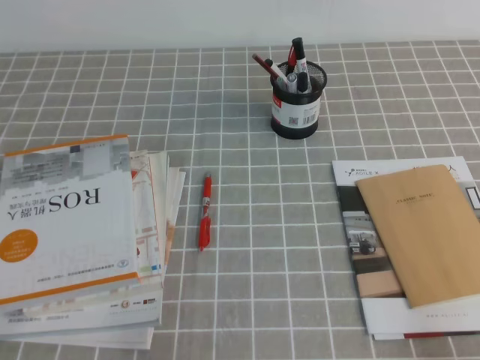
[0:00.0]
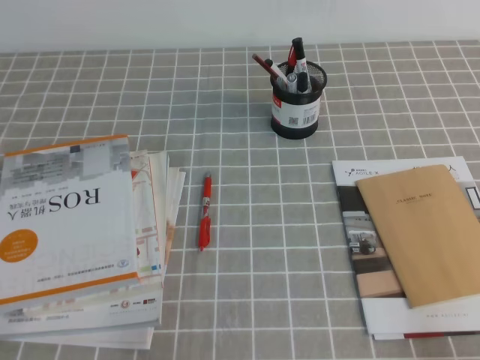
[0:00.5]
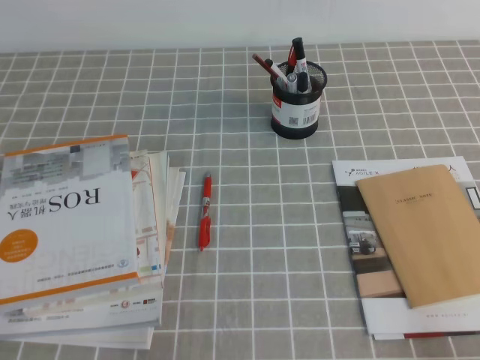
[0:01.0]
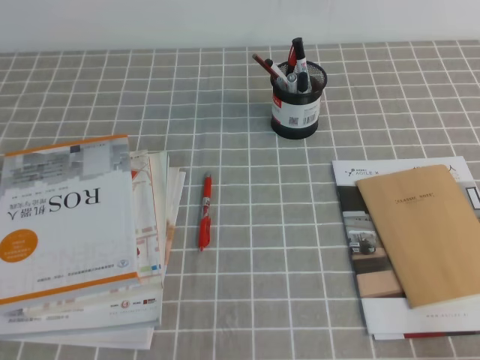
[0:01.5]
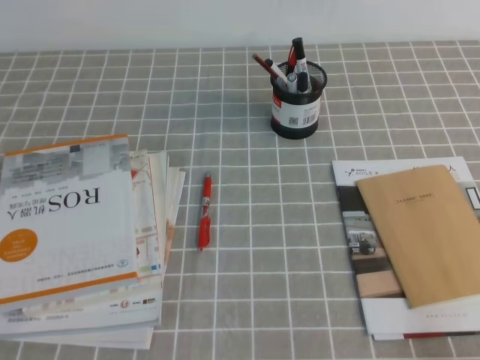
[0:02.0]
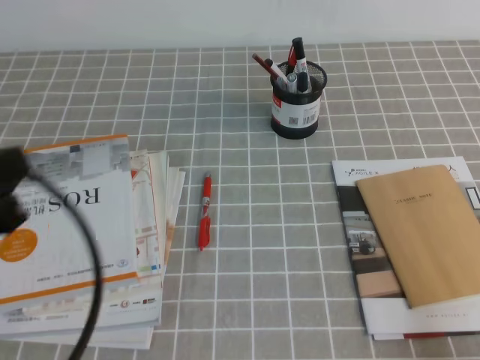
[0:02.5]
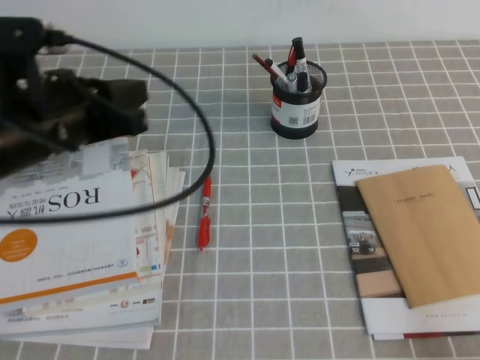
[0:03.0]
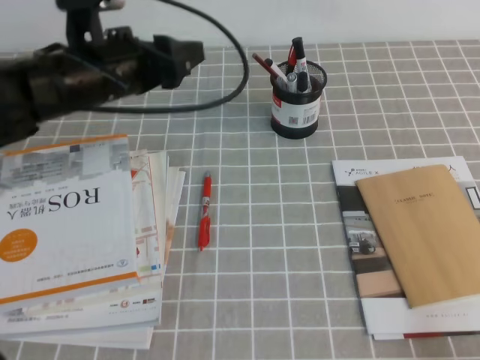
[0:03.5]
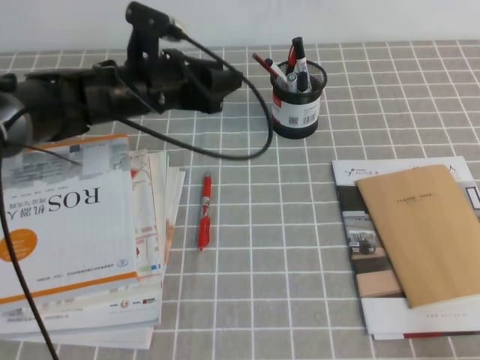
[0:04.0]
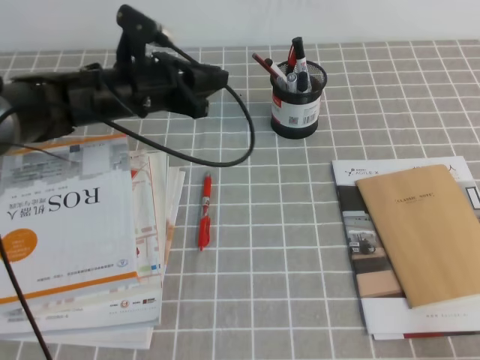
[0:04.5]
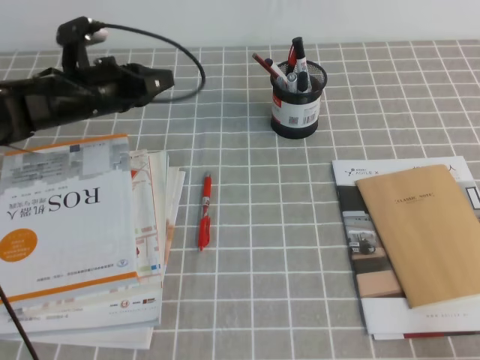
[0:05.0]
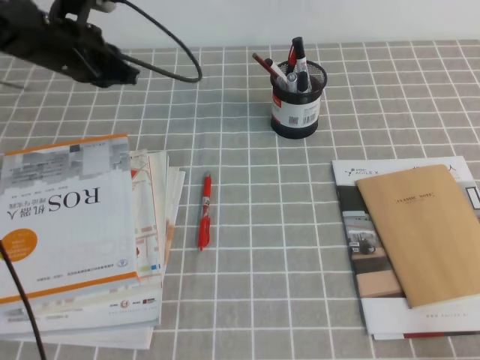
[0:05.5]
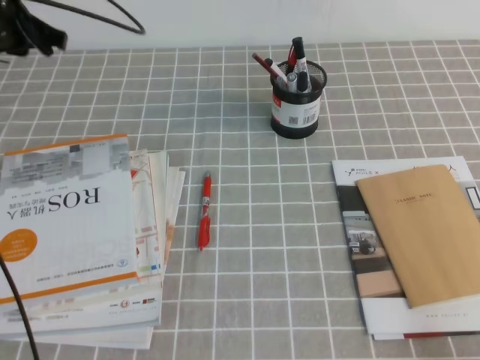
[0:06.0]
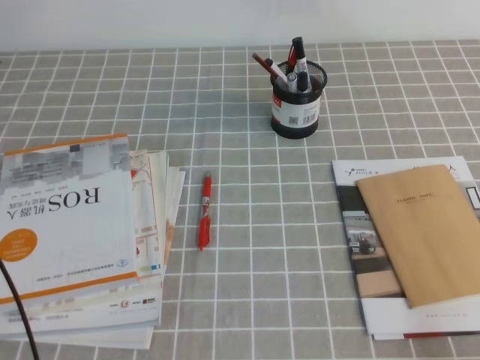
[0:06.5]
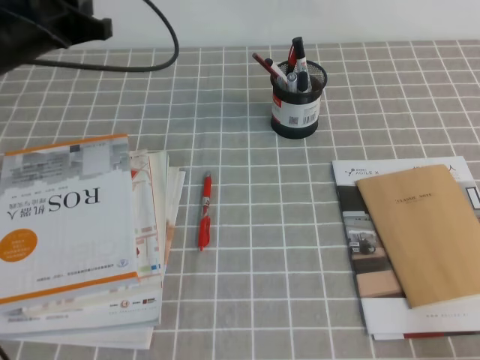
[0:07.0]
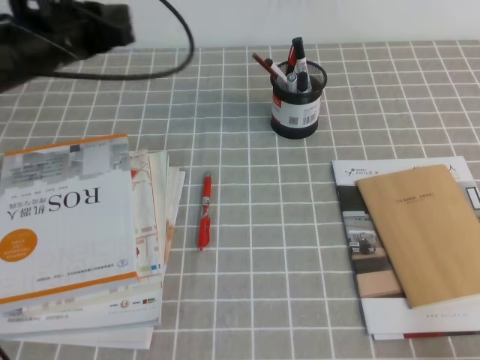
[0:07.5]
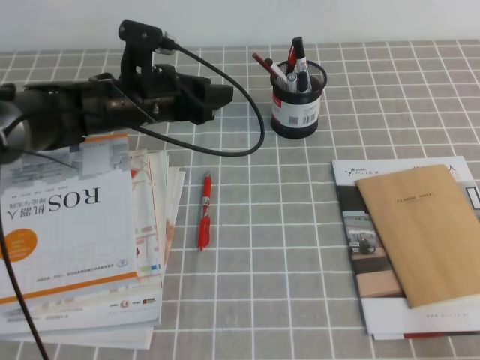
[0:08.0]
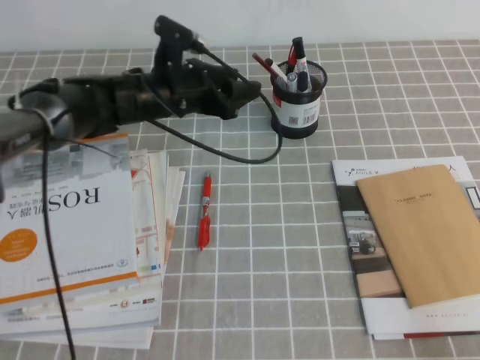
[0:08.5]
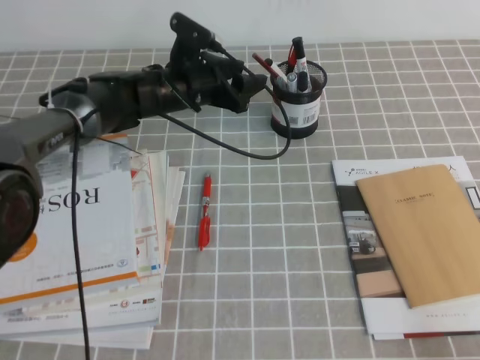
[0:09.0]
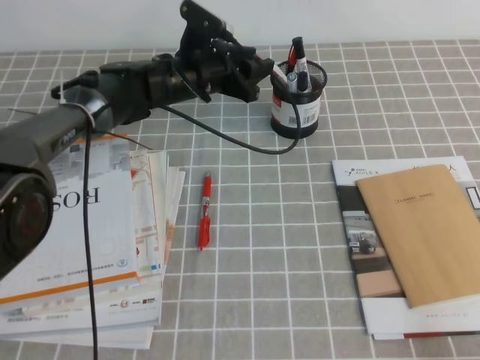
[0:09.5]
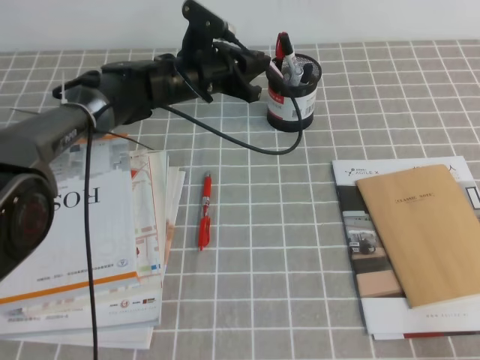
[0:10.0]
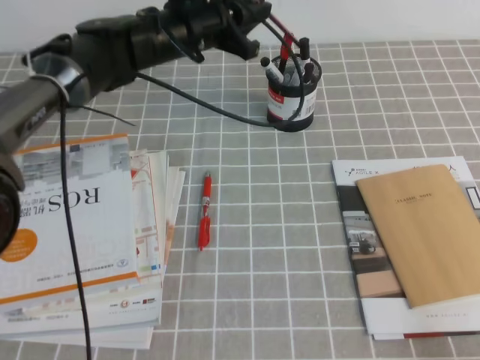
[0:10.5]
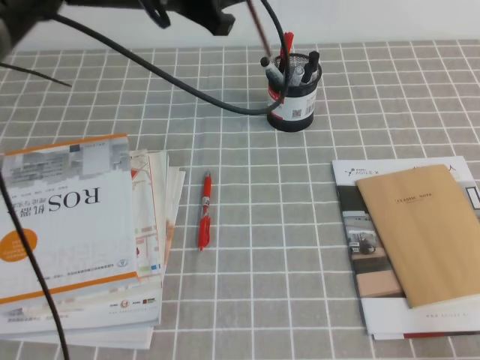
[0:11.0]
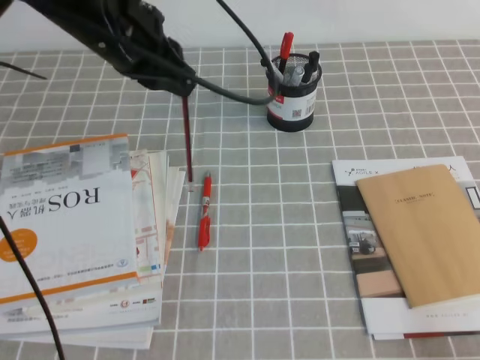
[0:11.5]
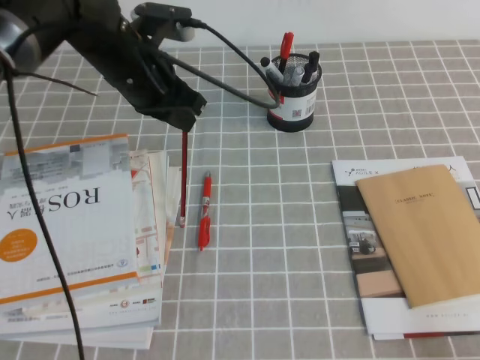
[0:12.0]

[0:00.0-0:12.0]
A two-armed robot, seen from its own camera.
0:02.0 to 0:04.0: The left gripper travels forward and to the right by some 40 cm, and opens.
0:04.0 to 0:06.0: The left gripper moves to the left, upward and forward, roughly 15 cm, and closes up.
0:06.0 to 0:08.0: The left gripper goes some 15 cm to the right and downward, and opens up.
0:08.0 to 0:10.0: The left gripper travels forward and to the right by about 10 cm, and closes up.
0:10.0 to 0:12.0: The left gripper moves upward, backward and to the left, approximately 15 cm.

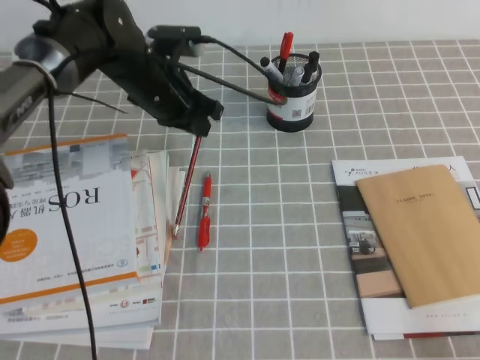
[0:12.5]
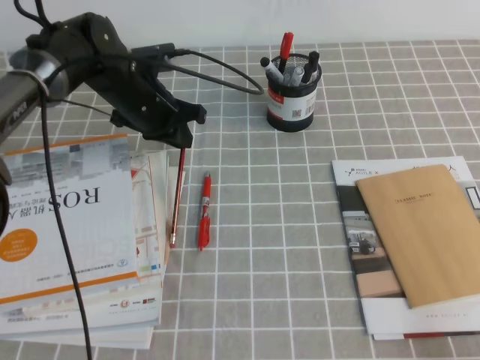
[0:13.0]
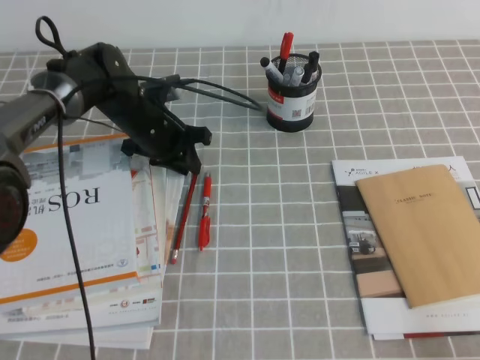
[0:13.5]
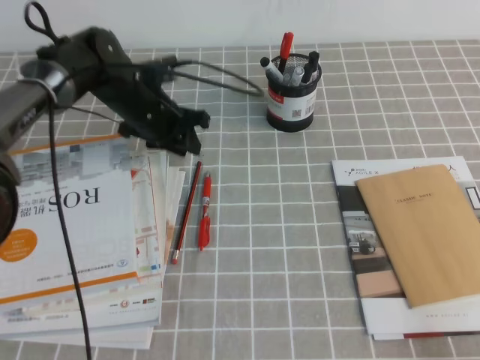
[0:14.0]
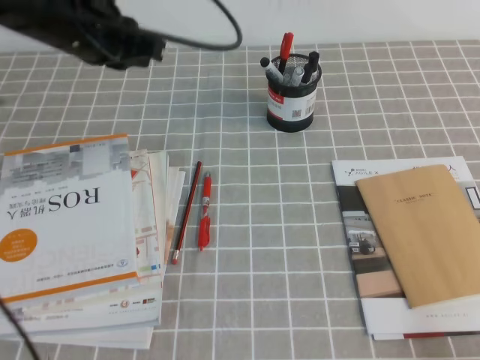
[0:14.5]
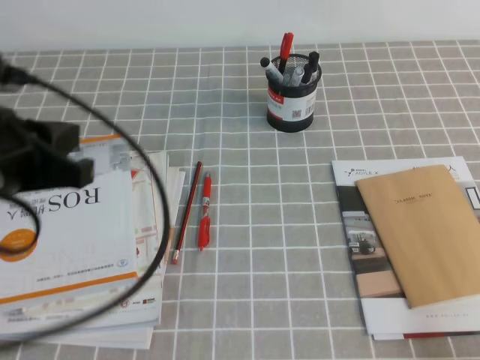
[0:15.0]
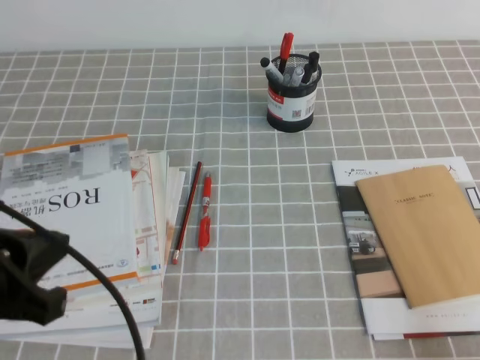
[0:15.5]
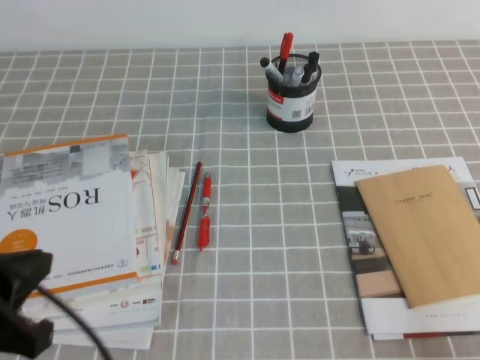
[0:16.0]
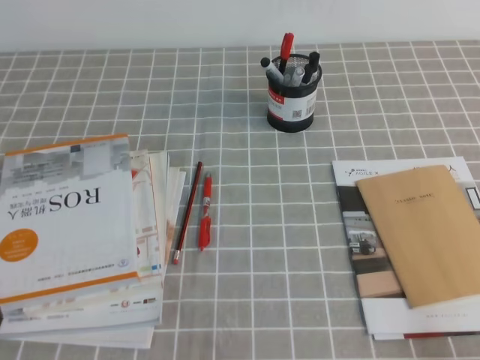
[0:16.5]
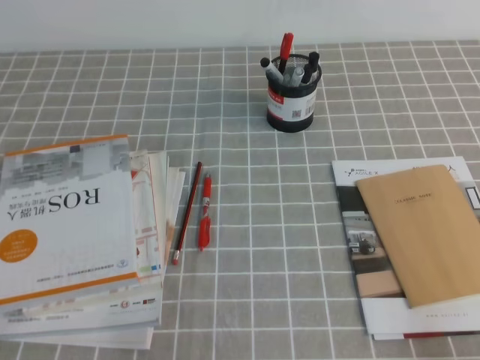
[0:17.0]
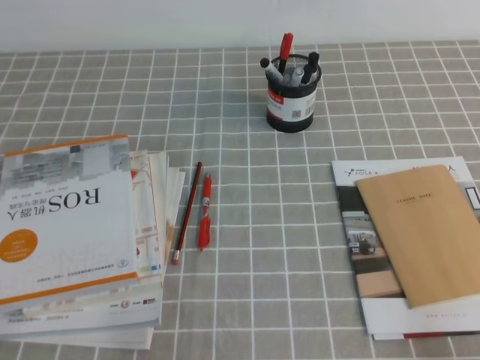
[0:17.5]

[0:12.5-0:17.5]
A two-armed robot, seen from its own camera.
Step, 0:12.5 to 0:17.5: Pick up the pen from the pen holder.
0:12.5 to 0:15.0: The left gripper heads backward, to the left and upward, covering approximately 25 cm.
0:15.0 to 0:17.5: The left gripper goes roughly 25 cm downward, backward and to the left.
